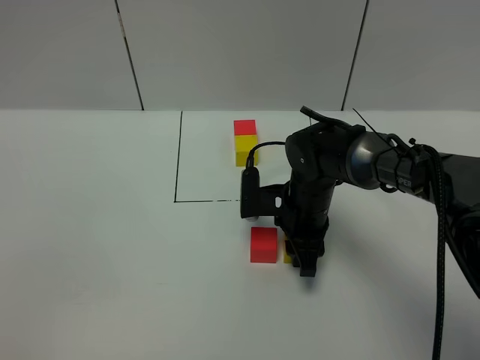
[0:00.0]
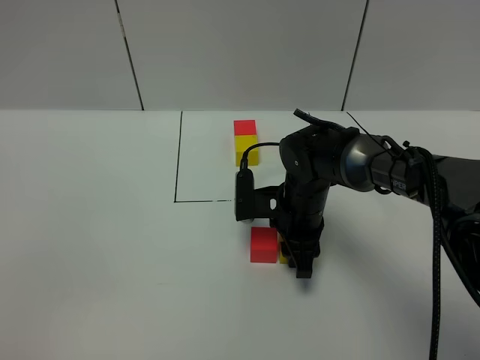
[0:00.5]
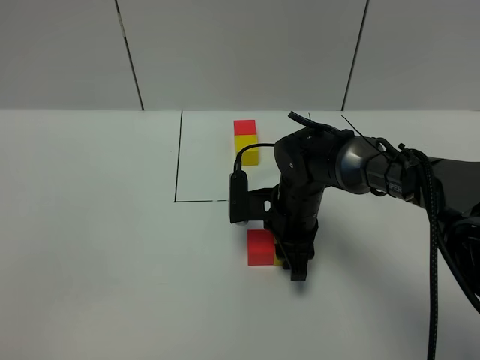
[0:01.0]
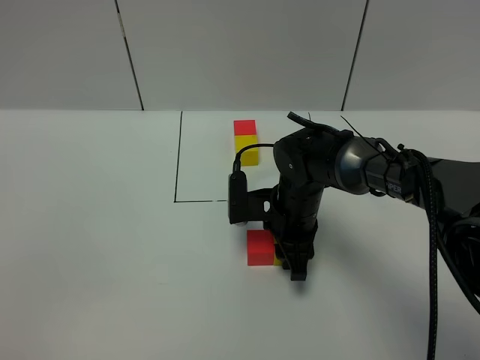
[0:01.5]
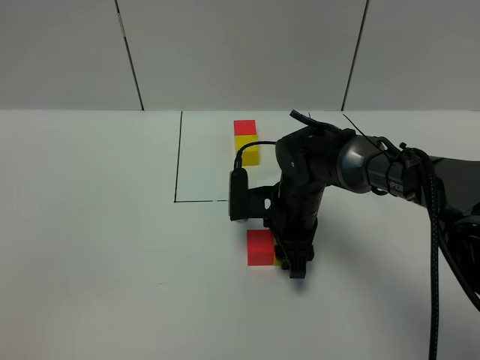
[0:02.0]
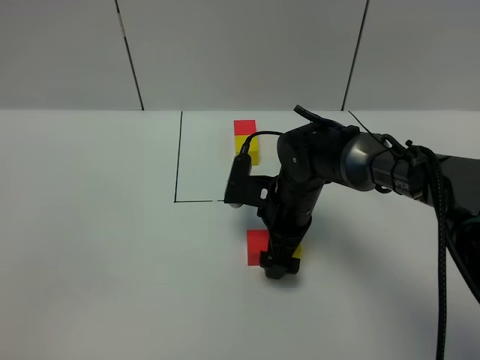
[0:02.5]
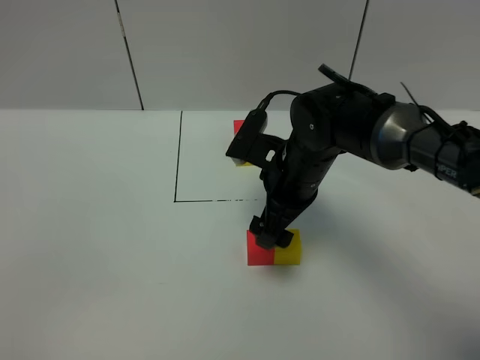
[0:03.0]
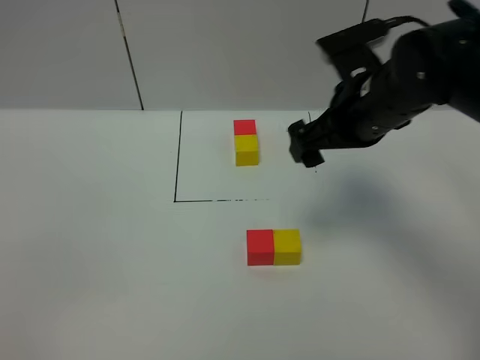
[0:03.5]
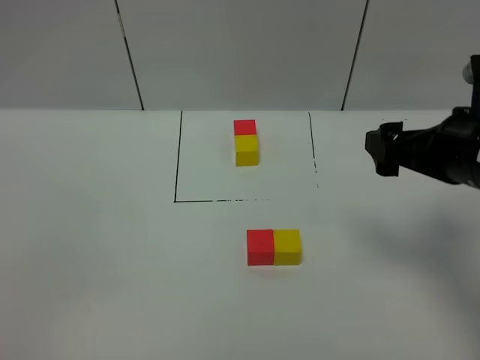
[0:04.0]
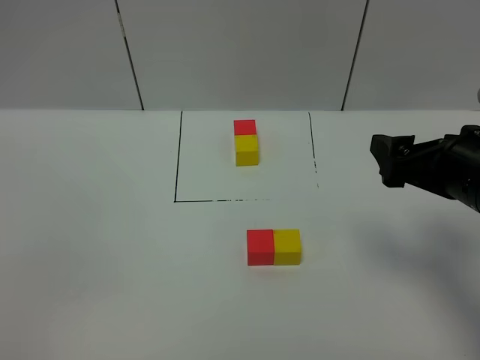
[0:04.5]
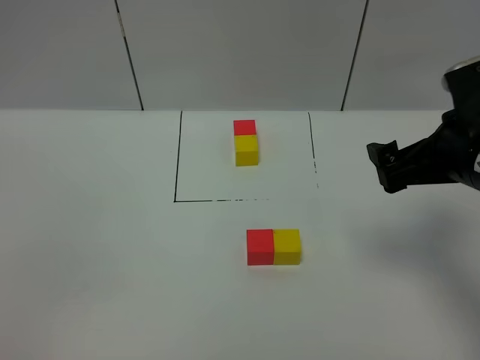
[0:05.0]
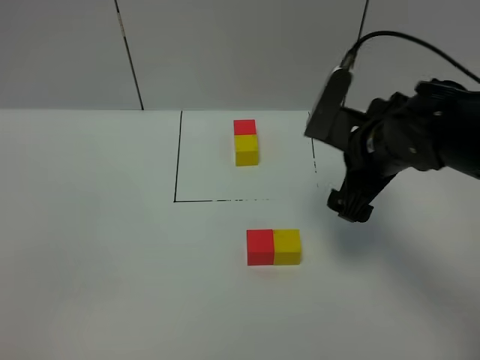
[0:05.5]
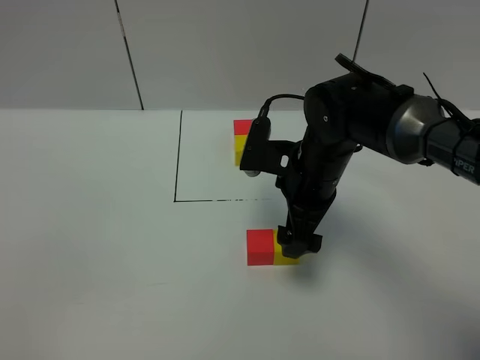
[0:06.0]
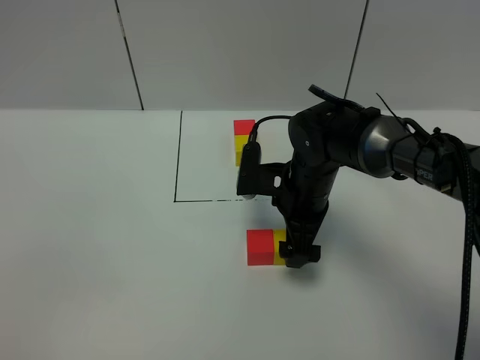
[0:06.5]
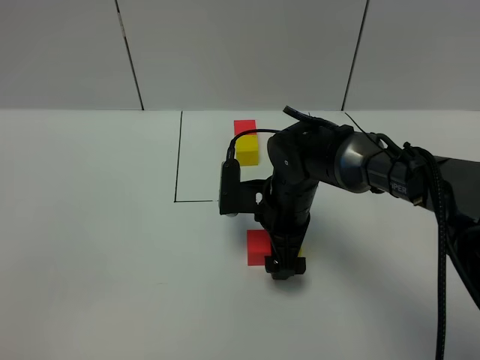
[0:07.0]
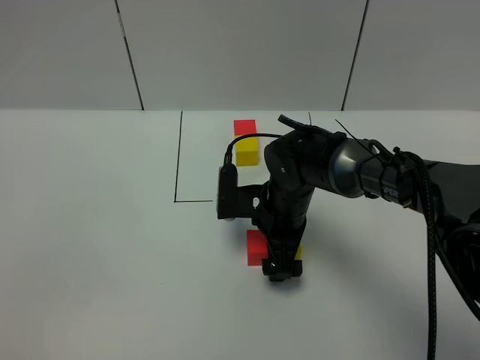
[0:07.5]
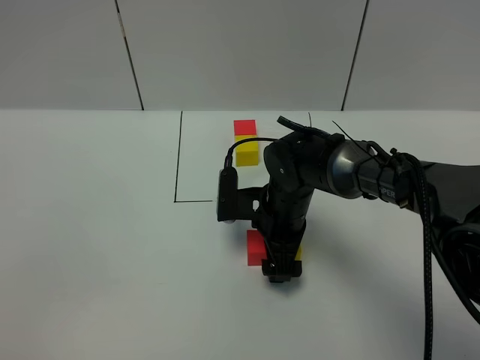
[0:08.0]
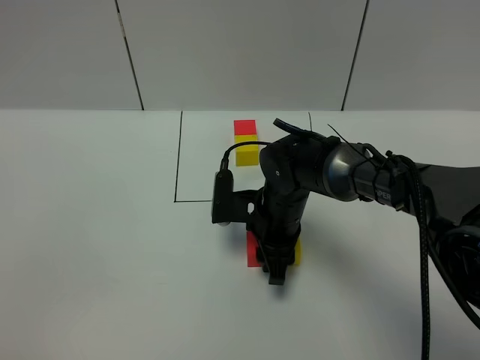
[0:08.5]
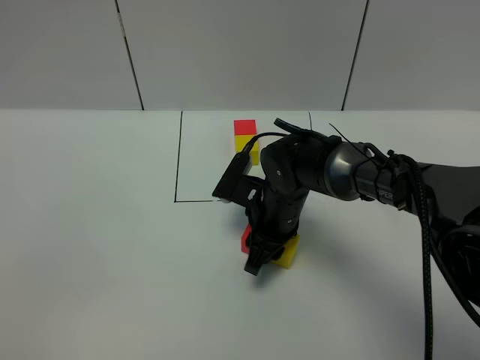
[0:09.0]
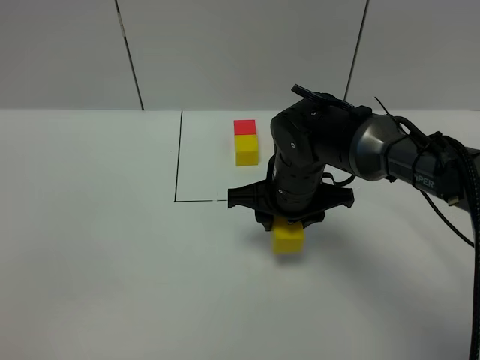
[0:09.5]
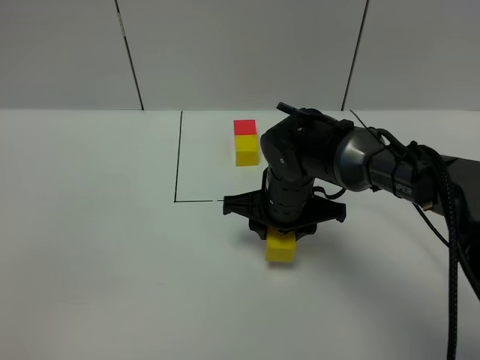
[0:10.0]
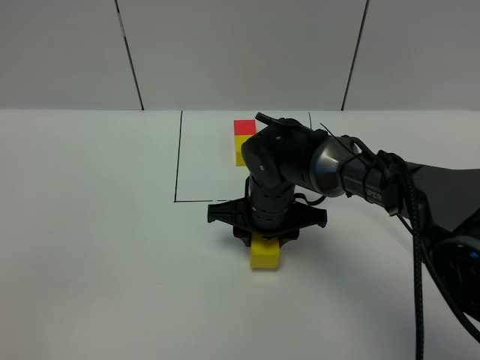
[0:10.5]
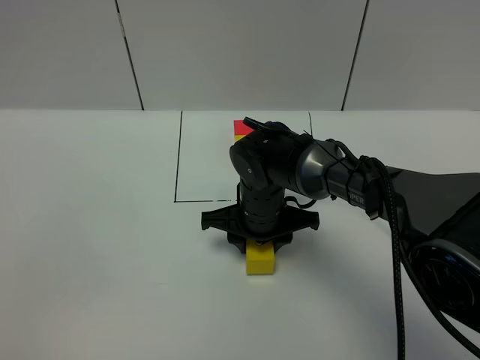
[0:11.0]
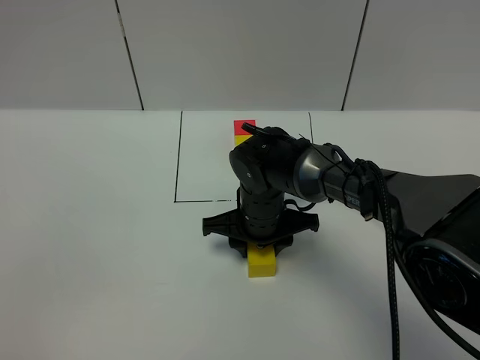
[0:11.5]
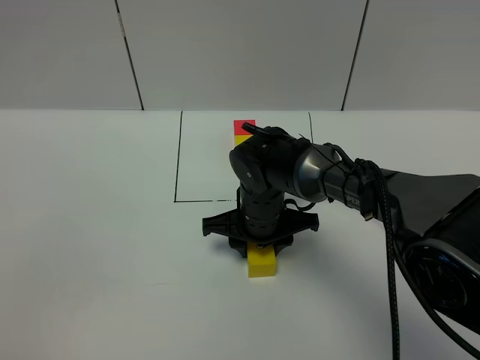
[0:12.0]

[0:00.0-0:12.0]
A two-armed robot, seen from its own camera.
Task of the whole recording: According to the building block template in front, assemble the scattered blocks together.
Step, 0:00.0 to 0:03.0: Put the yellow cube on the right of the red cube.
0:00.0 to 0:02.0: There are only small adjustments of the grippers.
0:02.0 to 0:04.0: The right gripper is displaced upward, to the right and backward by approximately 25 cm, and opens up.
0:04.0 to 0:06.0: The right gripper moves to the left, forward and downward, approximately 20 cm.
0:06.0 to 0:08.0: The right gripper shifts about 10 cm downward.
0:08.0 to 0:10.0: The right gripper closes up.
0:10.0 to 0:12.0: The grippers move only a little.

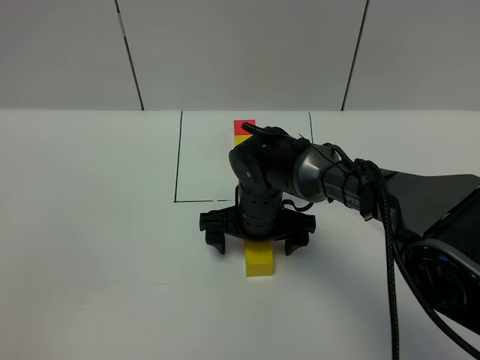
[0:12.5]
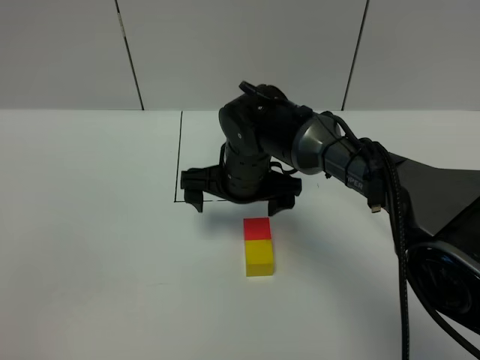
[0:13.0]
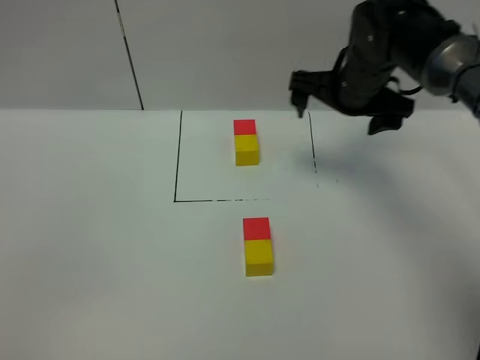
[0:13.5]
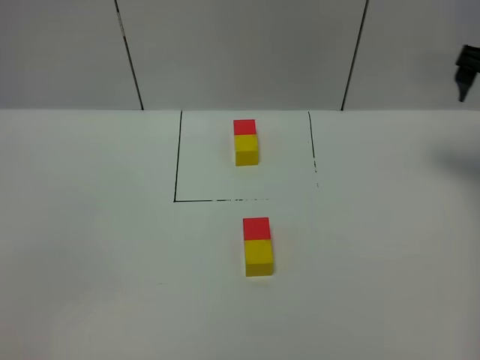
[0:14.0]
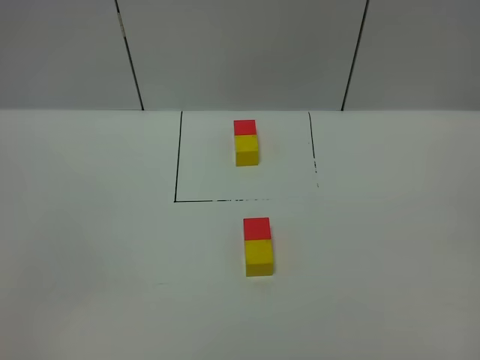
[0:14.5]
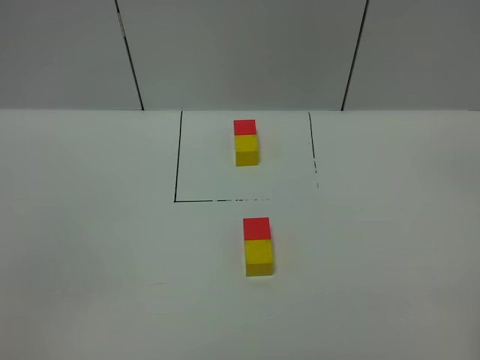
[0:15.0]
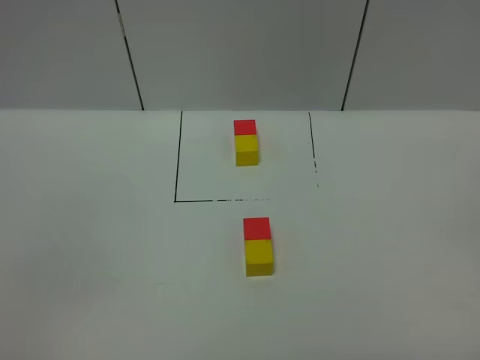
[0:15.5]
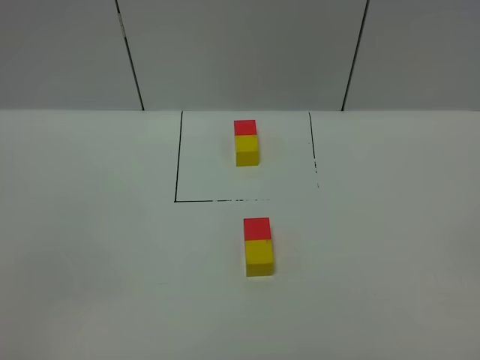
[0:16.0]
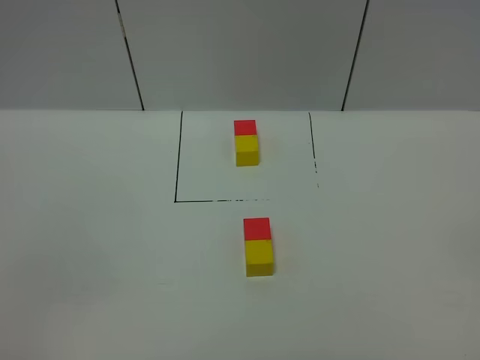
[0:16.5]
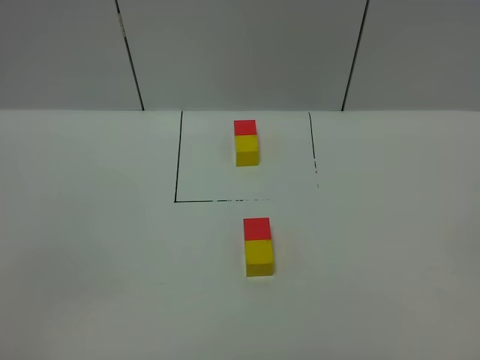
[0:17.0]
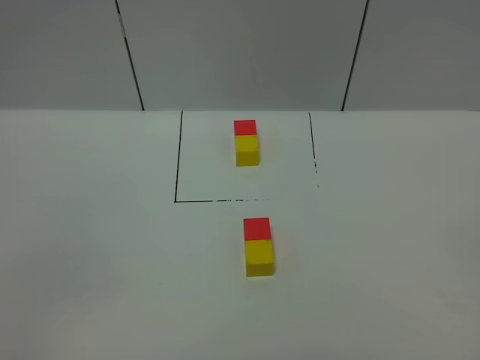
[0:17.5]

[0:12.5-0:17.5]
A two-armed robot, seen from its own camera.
Task of the whole recording: According to the building block template in front, assemble the scattered blocks together.
0:12.5 to 0:15.0: The right gripper moves to the right, backward and upward, roughly 50 cm.
